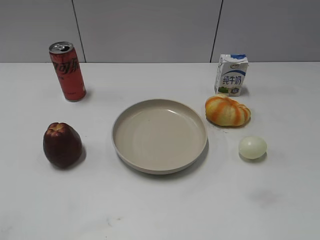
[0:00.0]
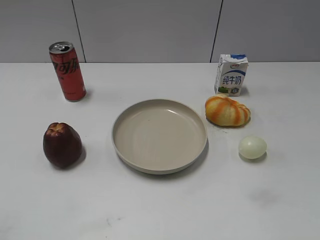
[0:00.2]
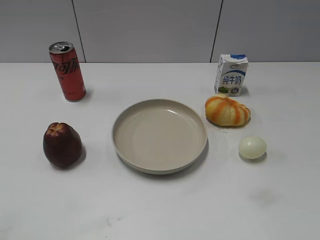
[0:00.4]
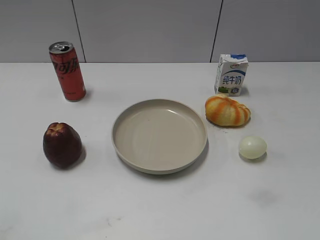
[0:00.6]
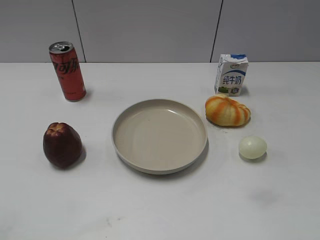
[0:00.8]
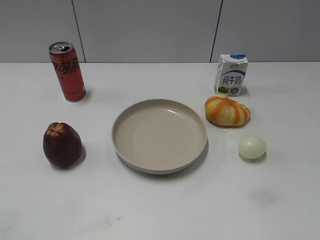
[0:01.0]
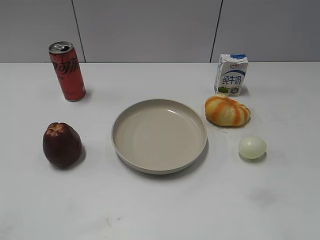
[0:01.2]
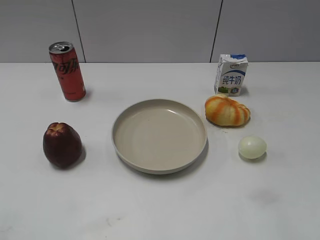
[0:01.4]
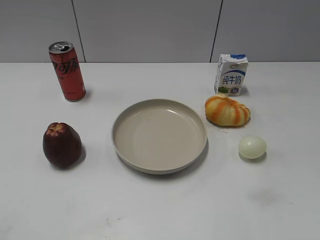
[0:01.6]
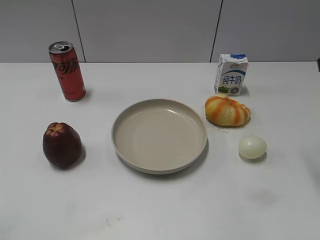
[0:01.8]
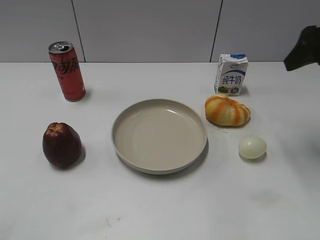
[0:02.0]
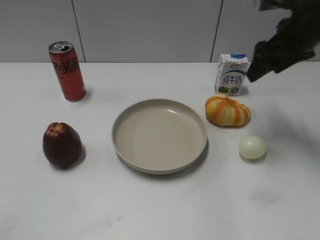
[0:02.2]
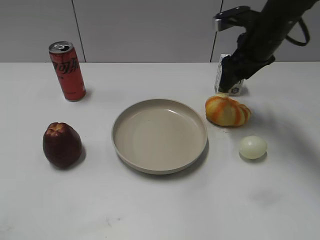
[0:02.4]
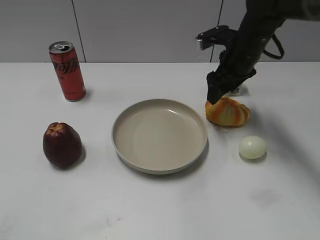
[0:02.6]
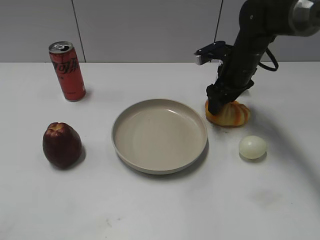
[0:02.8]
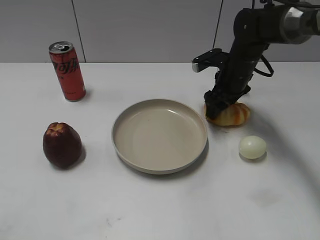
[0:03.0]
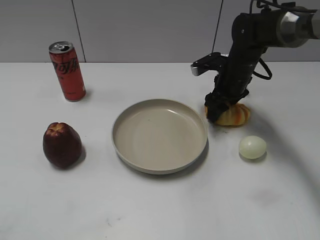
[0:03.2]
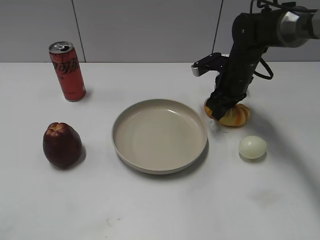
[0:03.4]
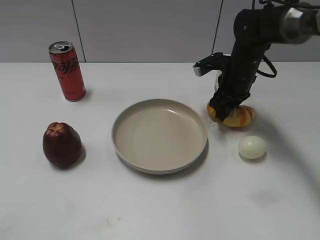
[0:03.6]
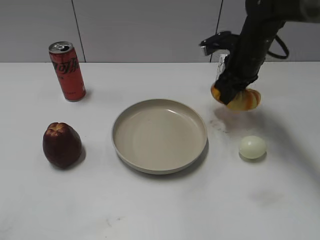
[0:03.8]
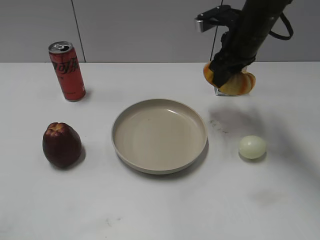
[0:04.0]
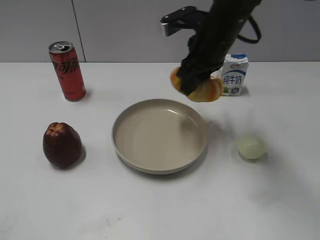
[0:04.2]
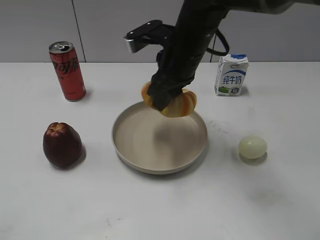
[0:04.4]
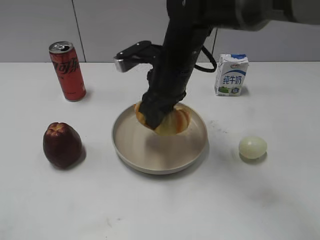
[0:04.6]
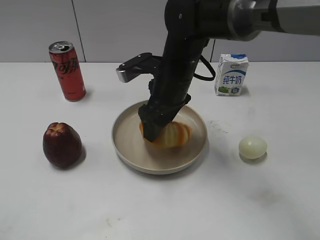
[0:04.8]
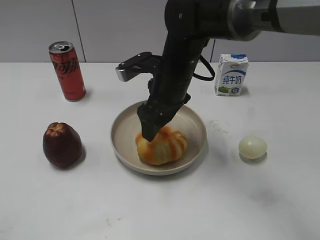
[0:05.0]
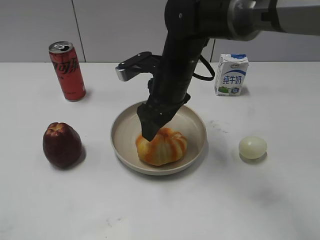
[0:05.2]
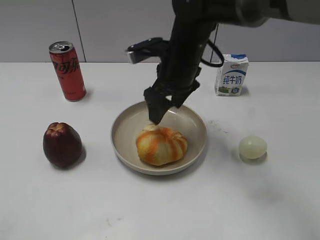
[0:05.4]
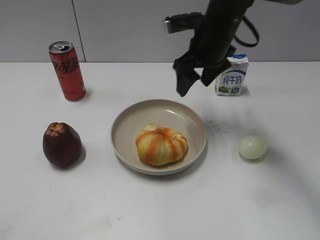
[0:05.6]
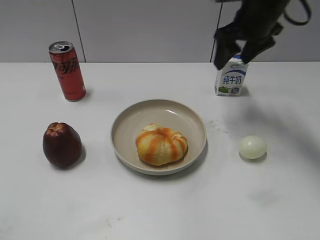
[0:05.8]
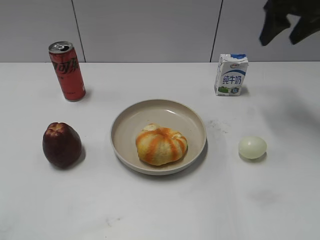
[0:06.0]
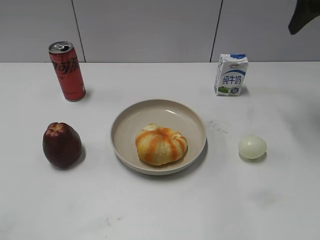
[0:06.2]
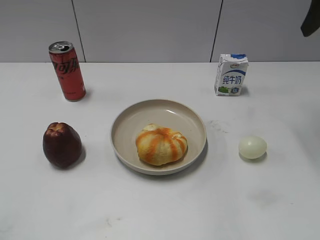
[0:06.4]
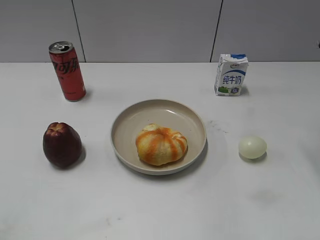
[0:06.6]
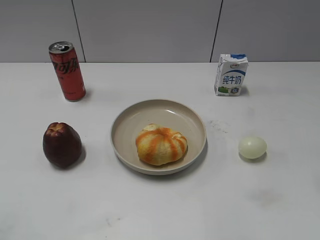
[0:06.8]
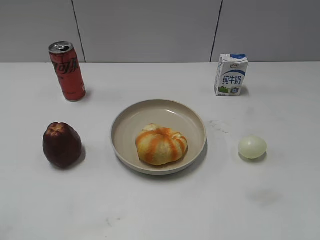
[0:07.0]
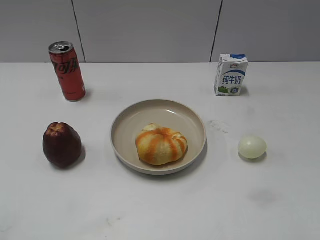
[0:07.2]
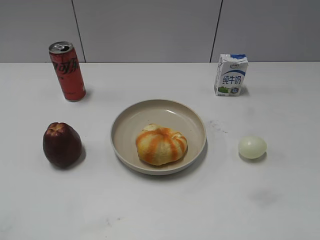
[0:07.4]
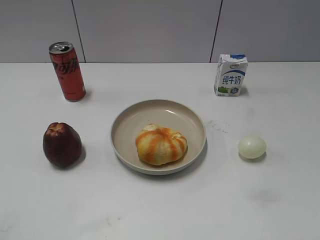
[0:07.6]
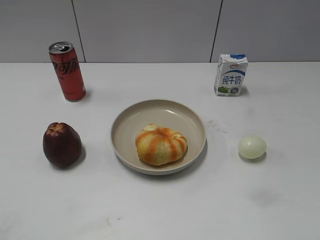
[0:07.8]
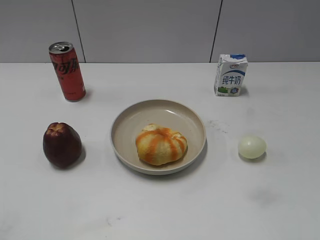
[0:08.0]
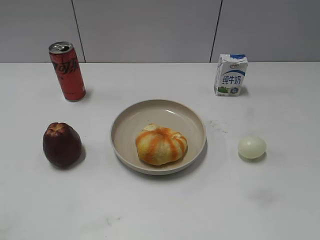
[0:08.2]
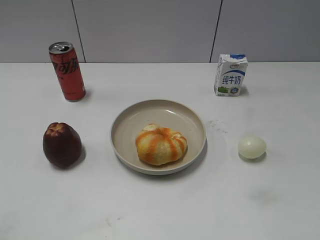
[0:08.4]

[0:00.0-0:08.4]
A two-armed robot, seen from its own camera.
Step, 0:01.0 to 0:03.4: Grasp the round bread with right gripper.
Step, 0:03.6 to 0:05.4: Place the round bread on the plate with right gripper.
0:01.4 to 0:02.8: The right gripper shifts roughly 40 cm forward, downward and to the left.
0:02.8 to 0:04.2: The right gripper heads upward, to the left and backward, covering approximately 15 cm, and closes.
0:04.2 to 0:05.6: The right gripper opens its fingers.
0:05.6 to 0:07.0: The right gripper moves backward, to the right and upward, roughly 30 cm.
